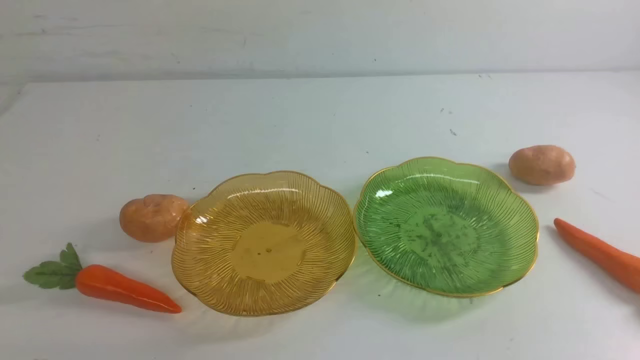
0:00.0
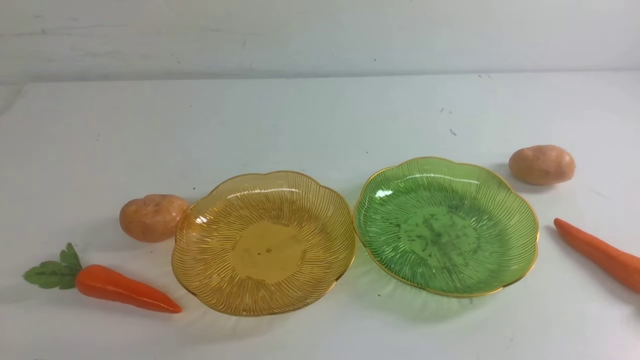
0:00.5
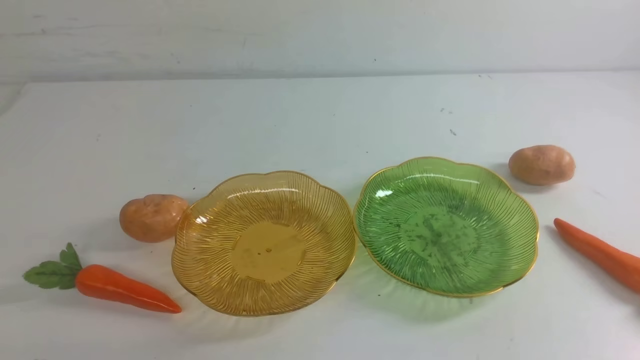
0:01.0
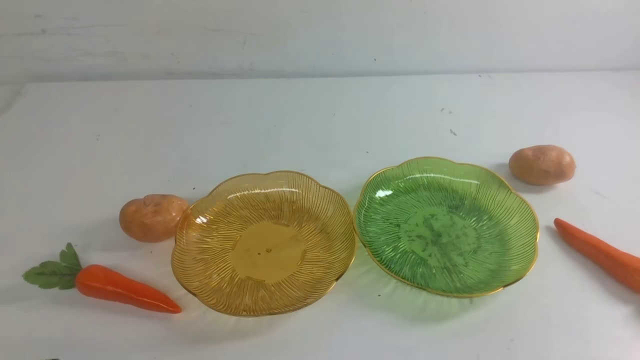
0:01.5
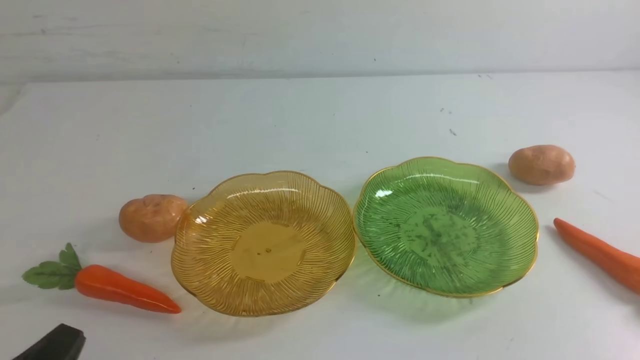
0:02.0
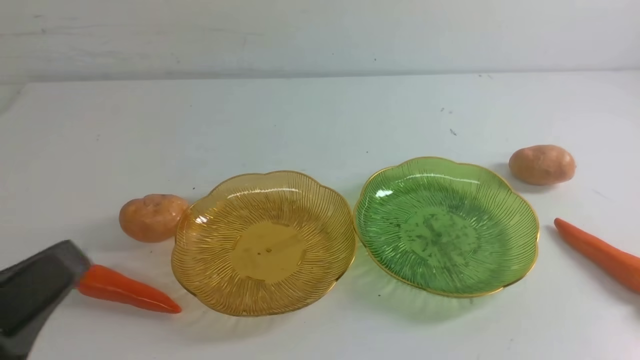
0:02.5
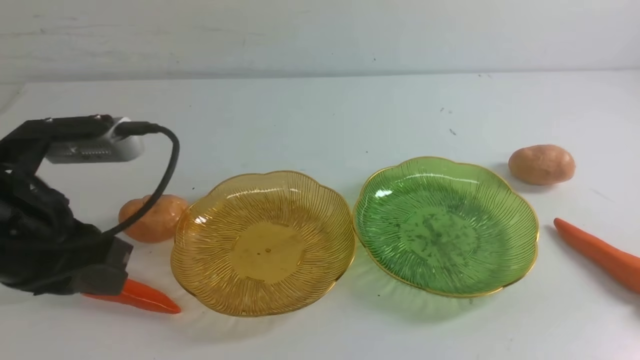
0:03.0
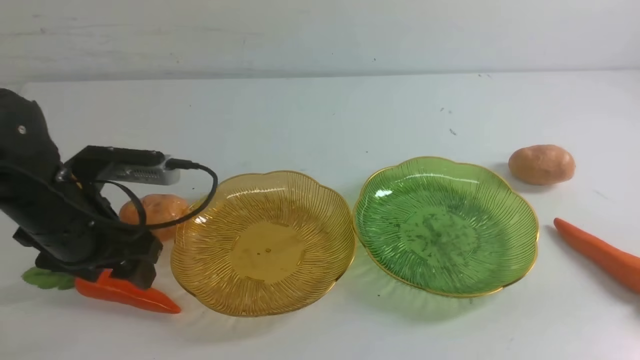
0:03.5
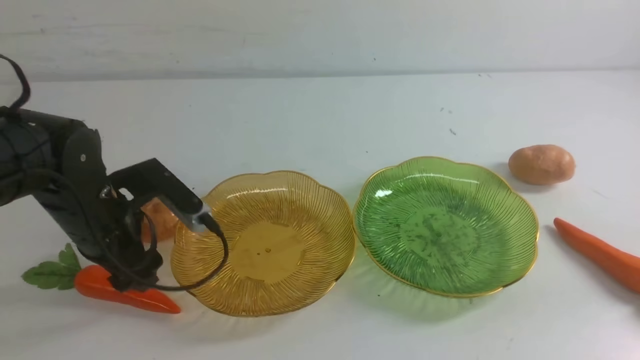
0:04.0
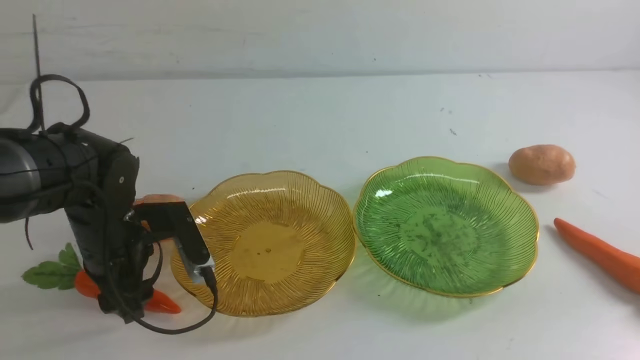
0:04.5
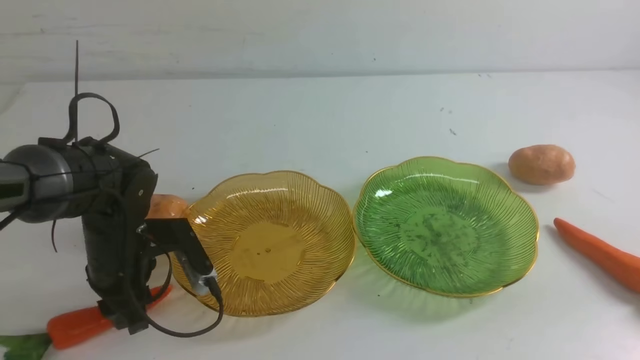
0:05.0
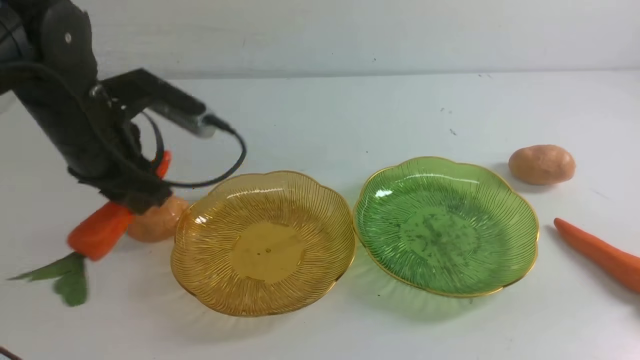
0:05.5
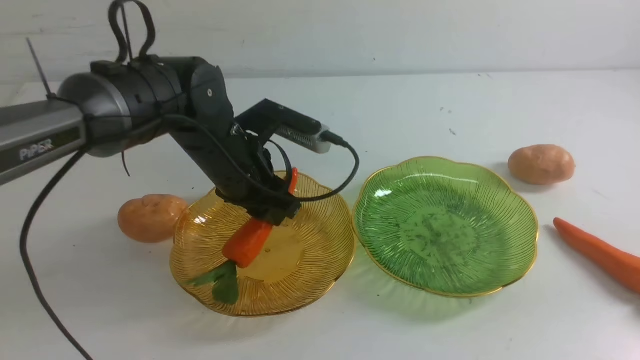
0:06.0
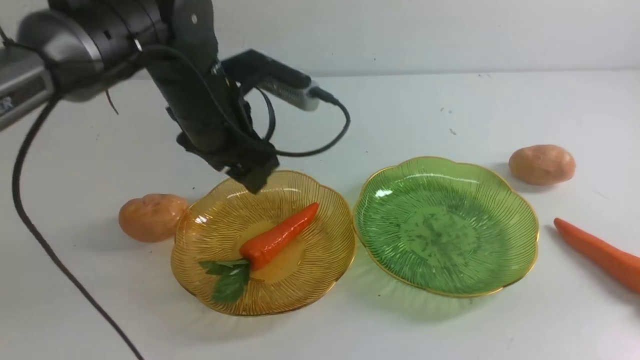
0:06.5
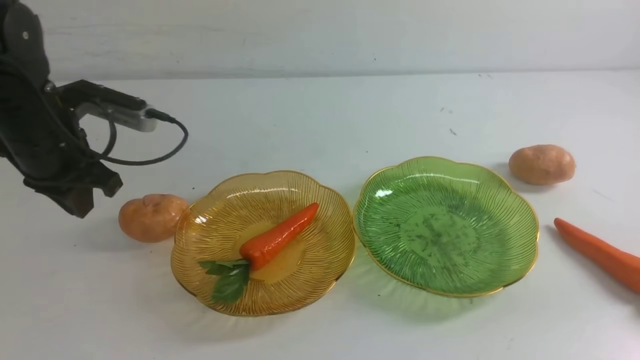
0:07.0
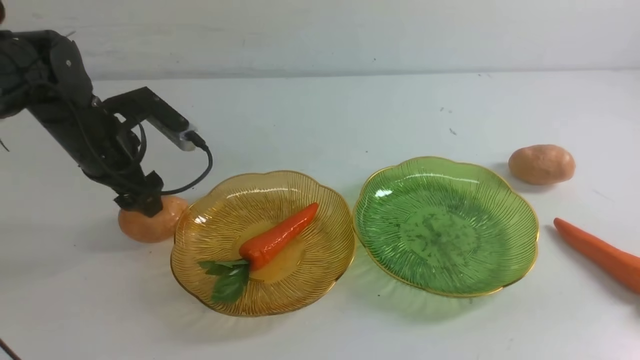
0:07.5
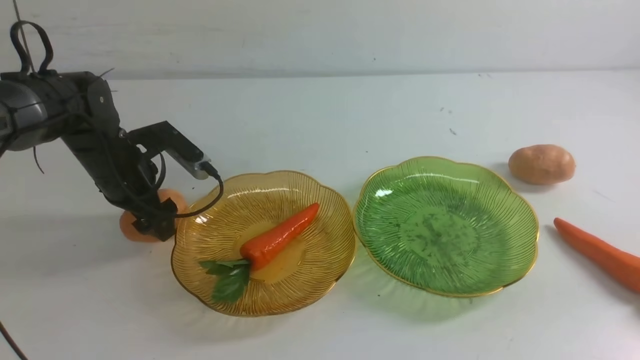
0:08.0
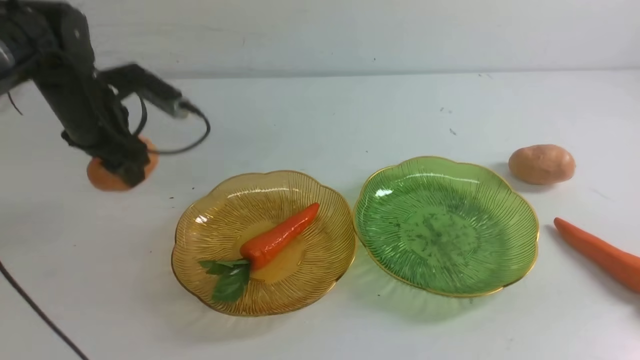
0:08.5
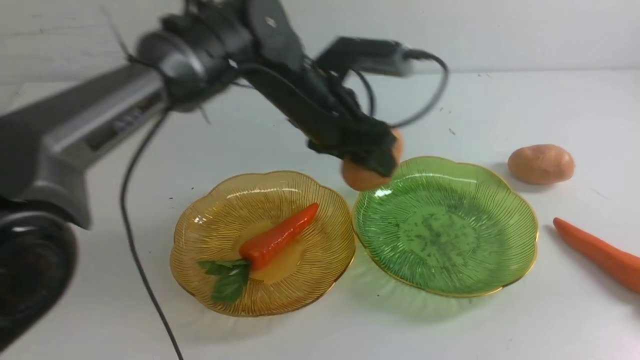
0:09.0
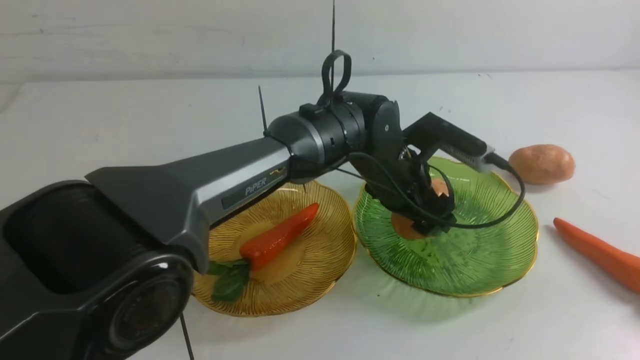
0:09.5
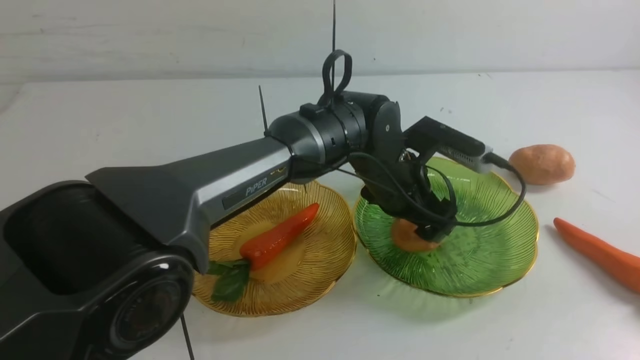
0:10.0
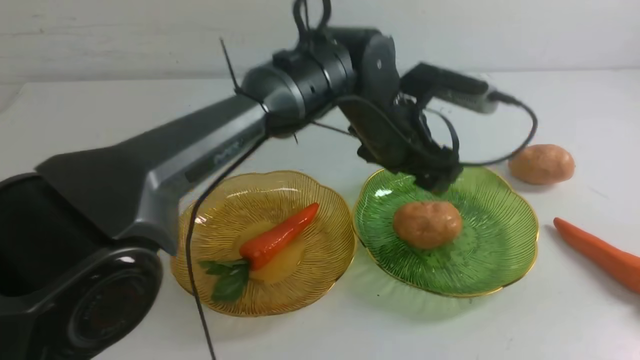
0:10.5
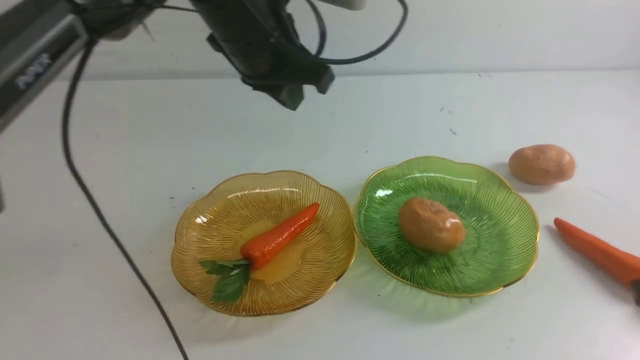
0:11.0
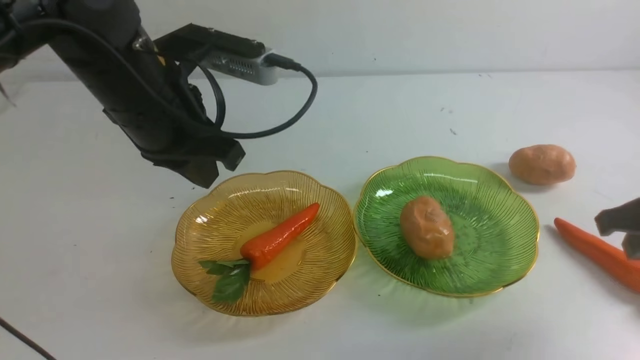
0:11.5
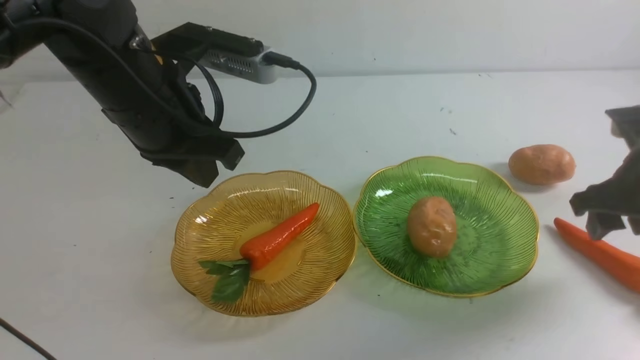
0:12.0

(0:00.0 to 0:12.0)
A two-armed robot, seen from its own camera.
Step, 0:00.0 - 0:06.5: use the left arm to grab a carrot and put it into the left plate.
Step, 0:07.0 - 0:10.5: Grab a potato with your left arm and put it on the right plate.
0:02.0 - 0:04.0: The left gripper shifts approximately 25 cm forward, and opens.
0:04.0 - 0:06.0: The left gripper goes some 10 cm to the right and forward.
0:06.0 - 0:08.0: The left gripper goes approximately 15 cm to the left, and opens its fingers.
0:08.0 - 0:10.0: The left gripper moves to the right, about 30 cm.
0:10.0 - 0:12.0: The left gripper goes roughly 25 cm to the left and upward, and closes its fingers, while the right gripper travels forward by some 20 cm, and opens up.

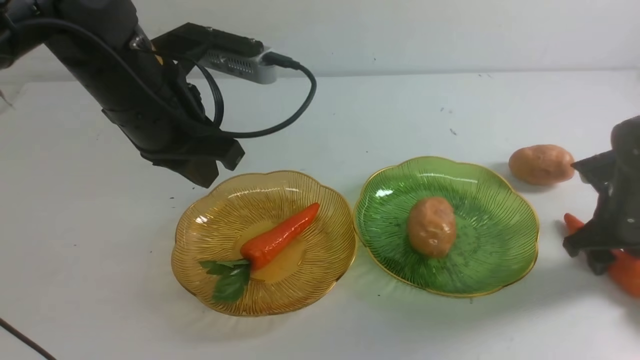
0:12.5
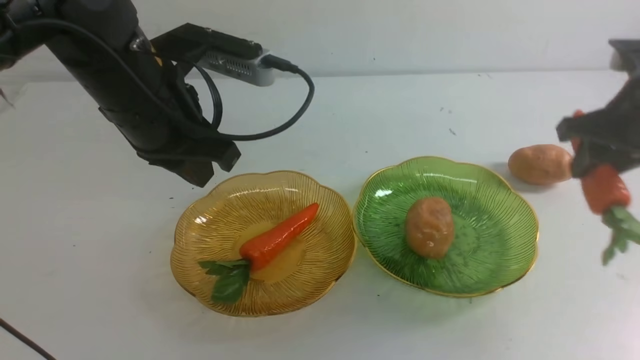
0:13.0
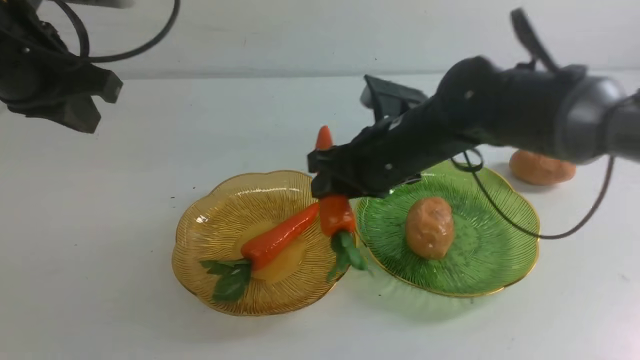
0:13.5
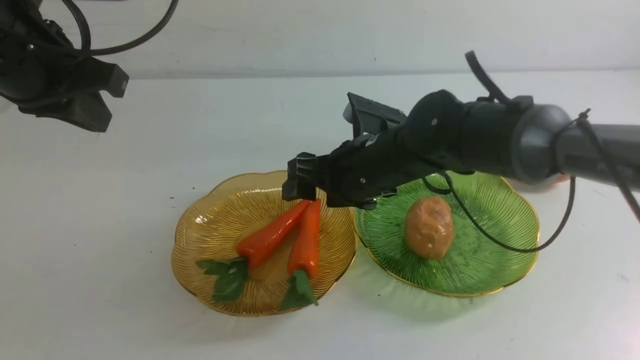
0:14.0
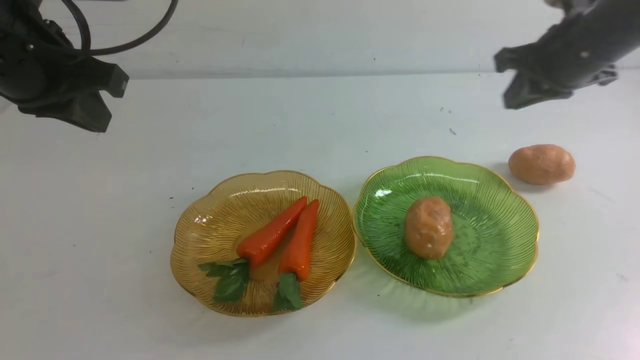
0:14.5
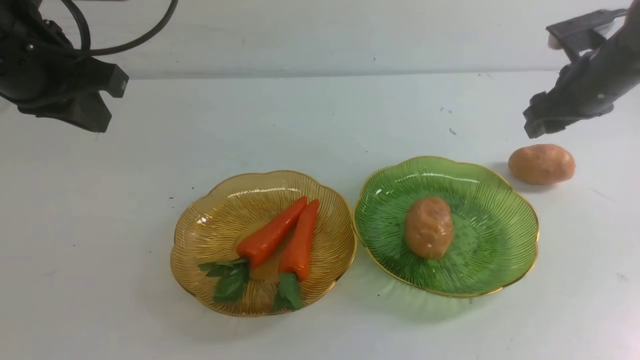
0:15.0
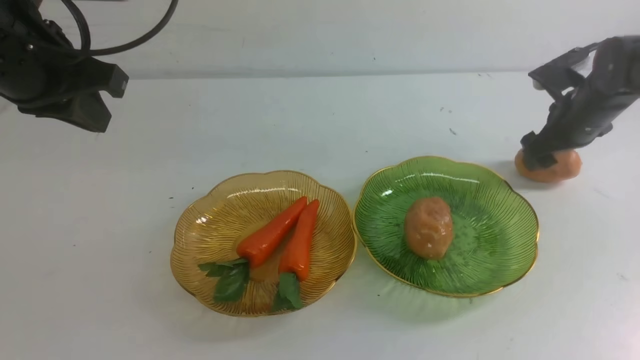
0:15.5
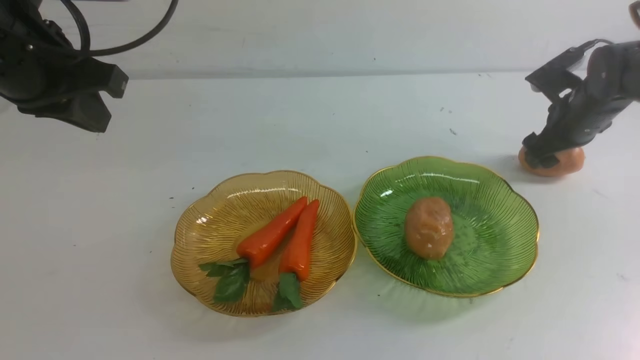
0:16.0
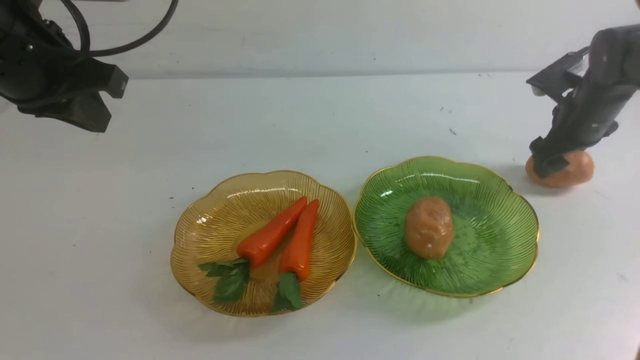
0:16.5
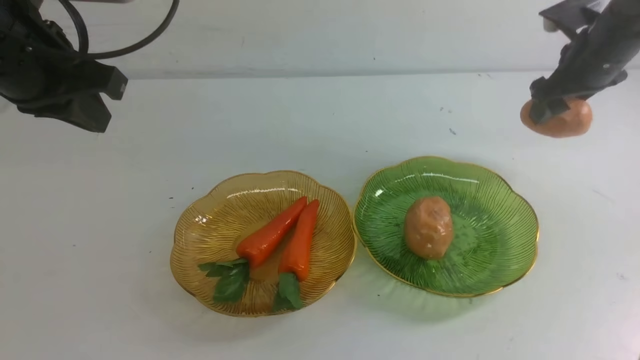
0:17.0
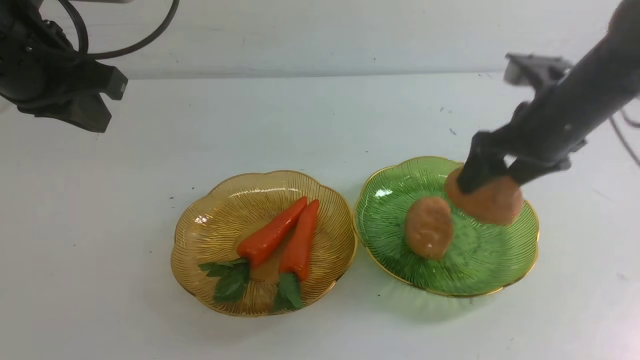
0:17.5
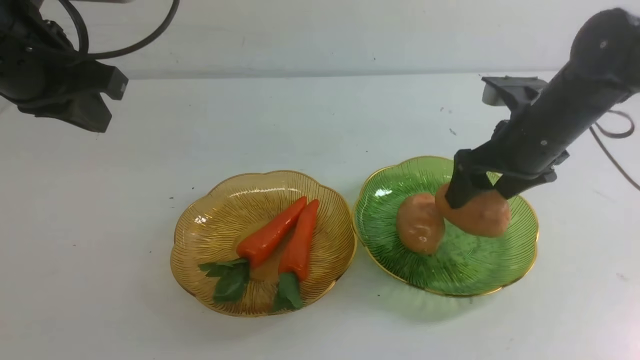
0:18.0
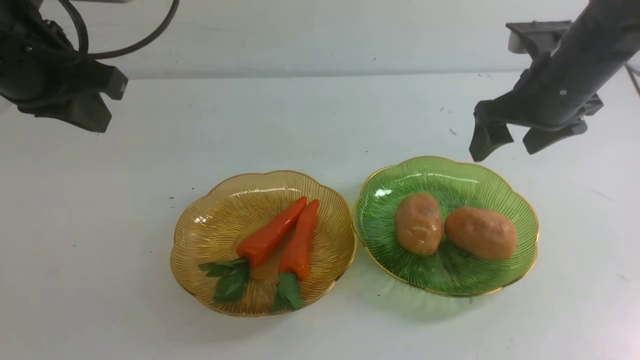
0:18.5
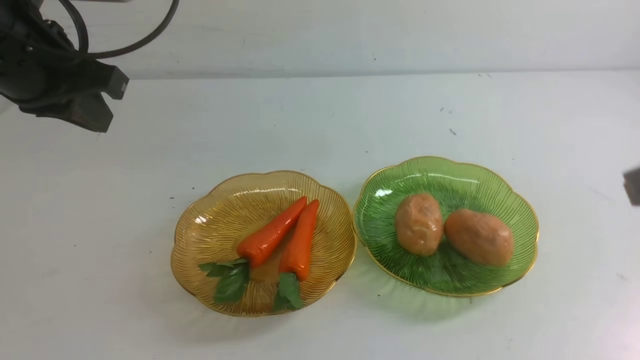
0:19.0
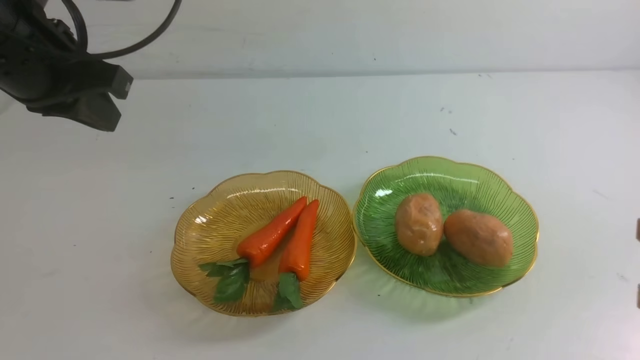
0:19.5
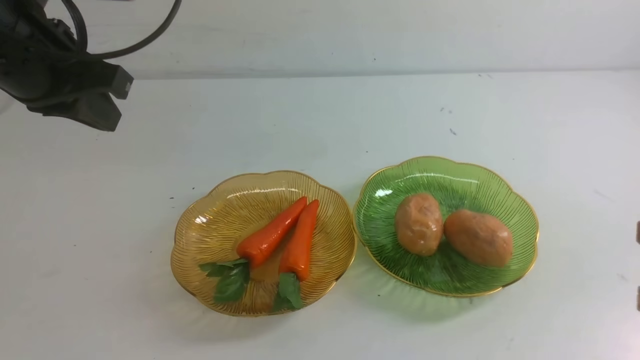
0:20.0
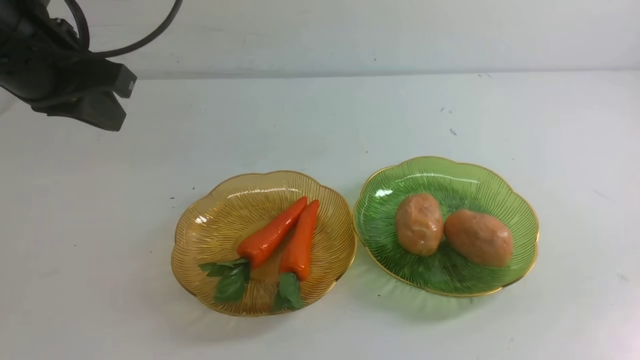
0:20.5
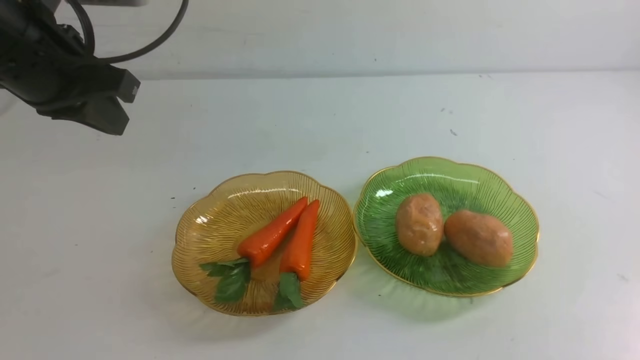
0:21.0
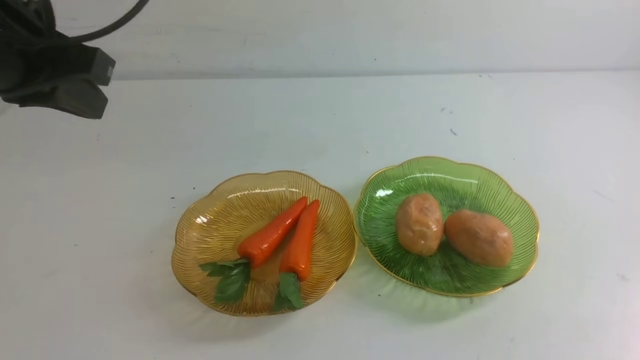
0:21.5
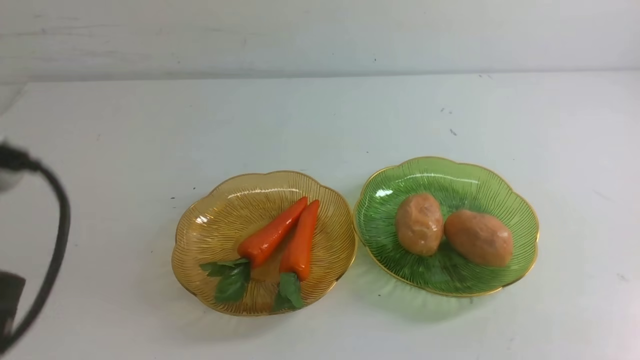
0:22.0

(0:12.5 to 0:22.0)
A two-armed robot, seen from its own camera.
Step, 0:14.5 - 0:18.5: Grab a potato with your right arm and put it on the right plate.
0:12.5 - 0:14.5: The right gripper is displaced upward, to the left and forward by roughly 20 cm; the left gripper moves to the left, approximately 10 cm.
0:14.5 - 0:16.5: The right gripper shifts some 15 cm to the right, downward and forward, and opens.
0:16.5 - 0:18.0: The right gripper is displaced to the left, backward and upward by about 15 cm.
0:18.0 - 0:20.0: The right gripper shifts about 25 cm backward, and closes its fingers.
0:20.0 - 0:22.0: The left gripper goes about 15 cm backward.
